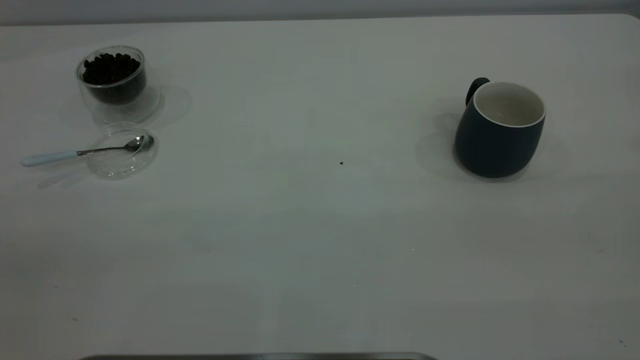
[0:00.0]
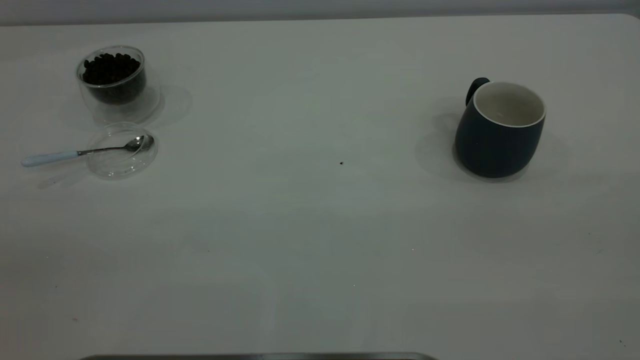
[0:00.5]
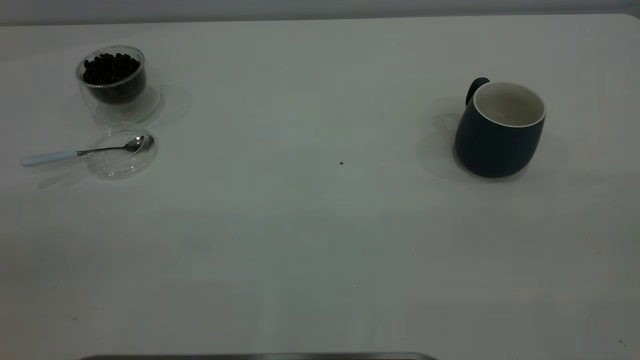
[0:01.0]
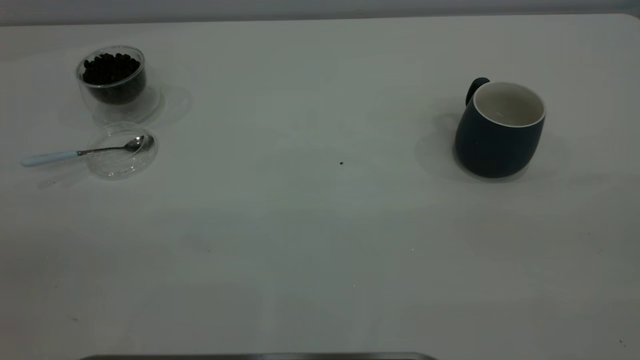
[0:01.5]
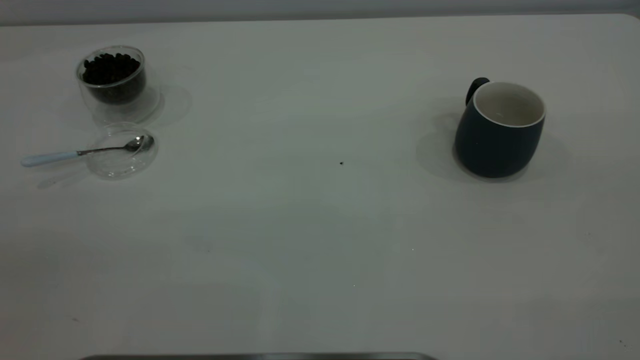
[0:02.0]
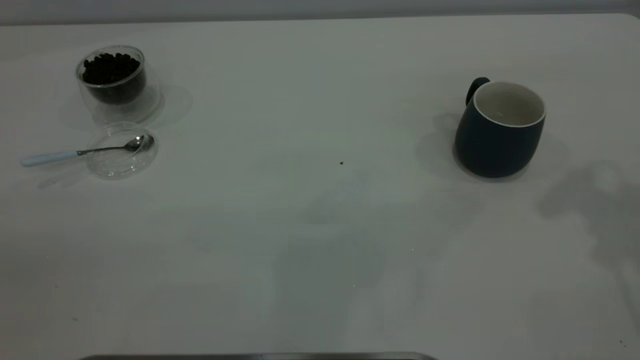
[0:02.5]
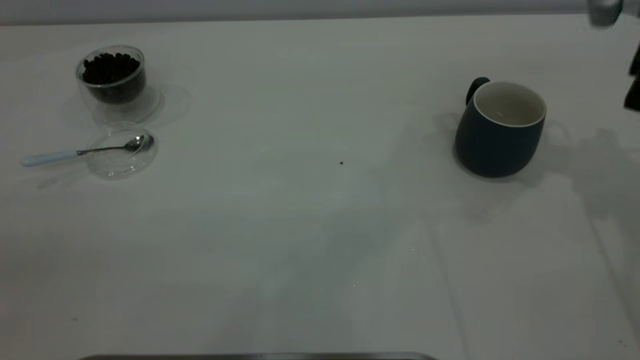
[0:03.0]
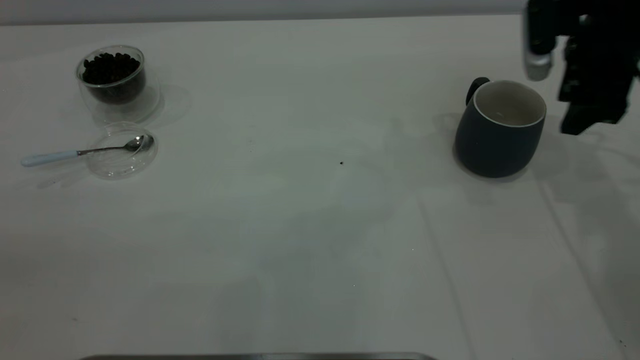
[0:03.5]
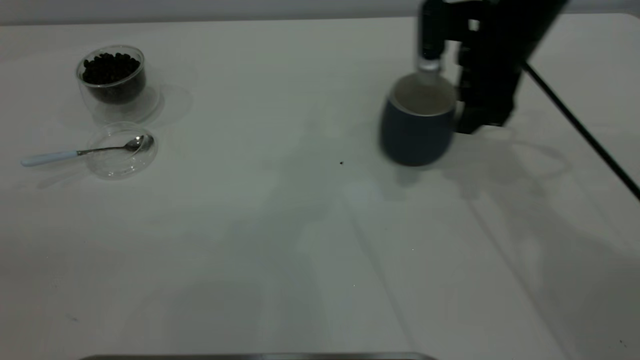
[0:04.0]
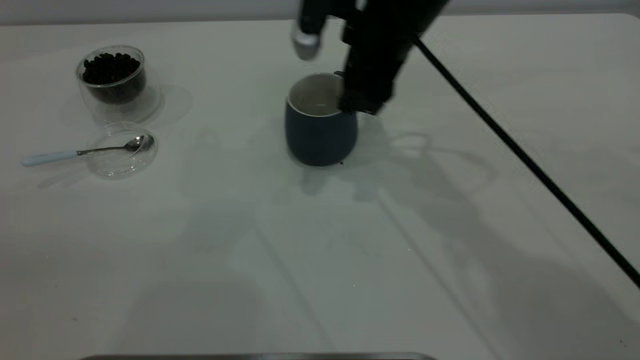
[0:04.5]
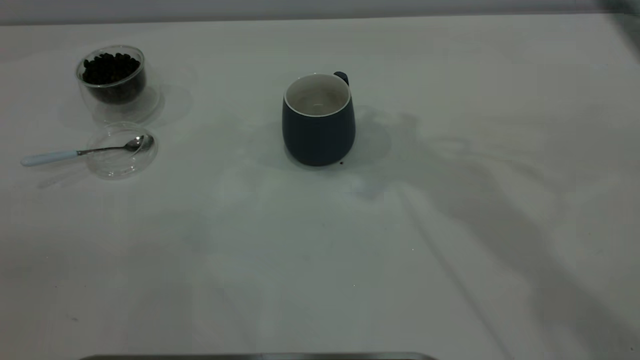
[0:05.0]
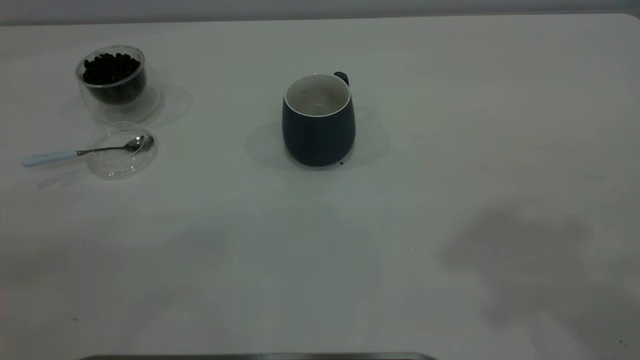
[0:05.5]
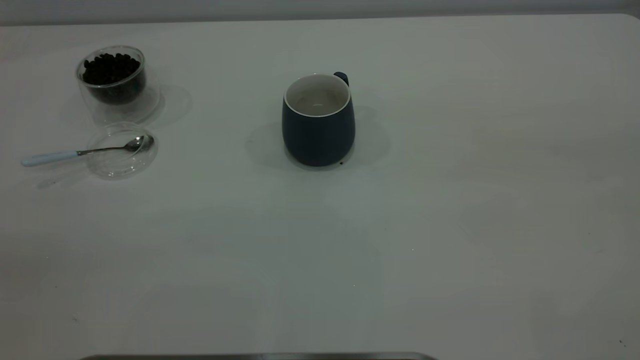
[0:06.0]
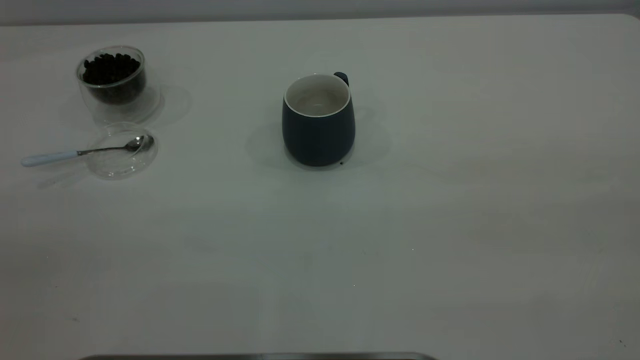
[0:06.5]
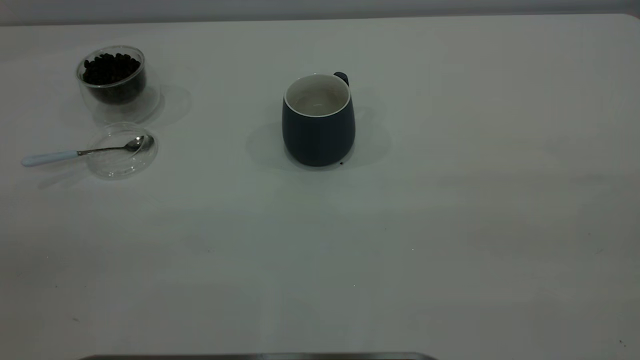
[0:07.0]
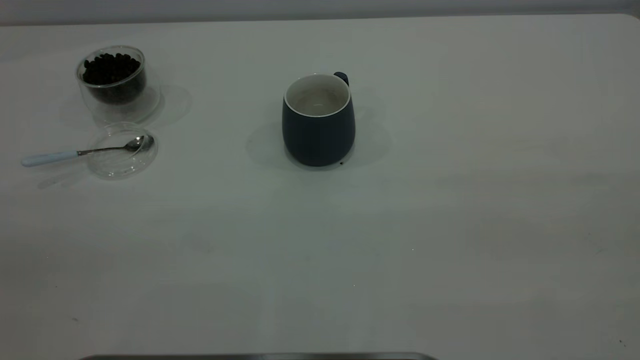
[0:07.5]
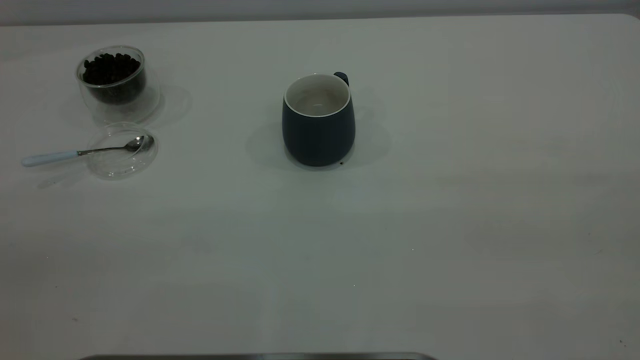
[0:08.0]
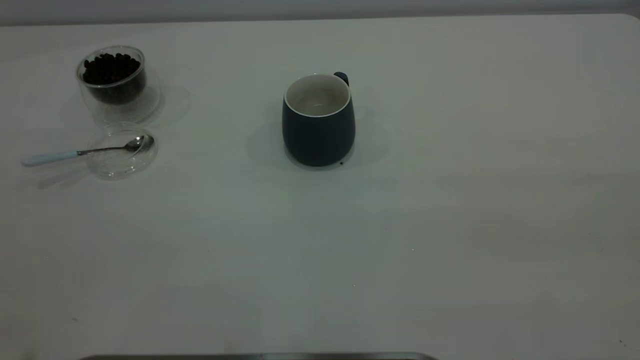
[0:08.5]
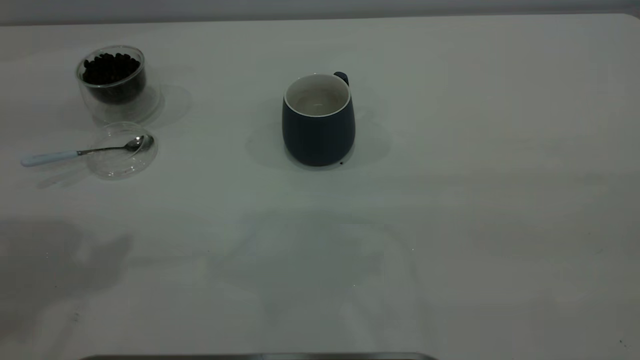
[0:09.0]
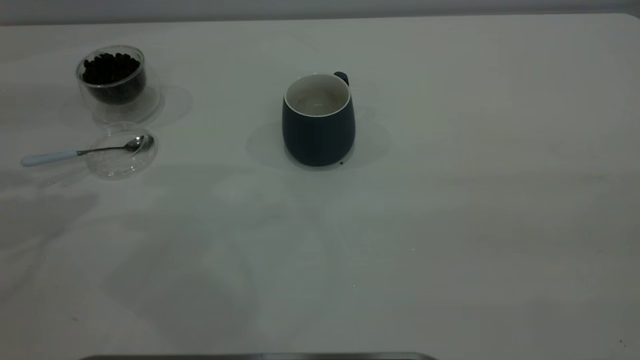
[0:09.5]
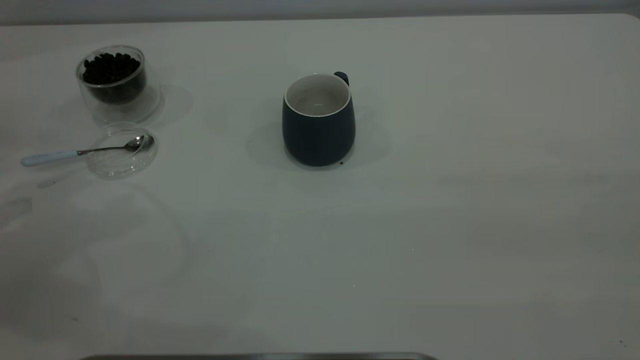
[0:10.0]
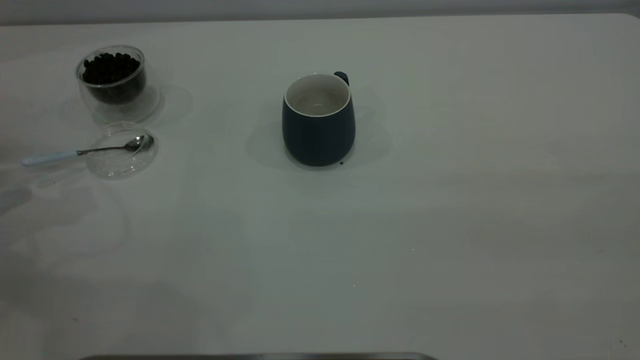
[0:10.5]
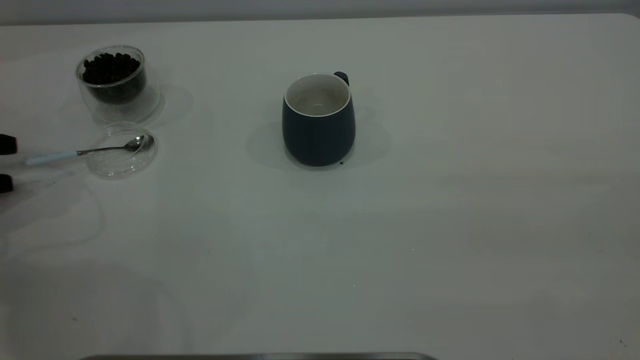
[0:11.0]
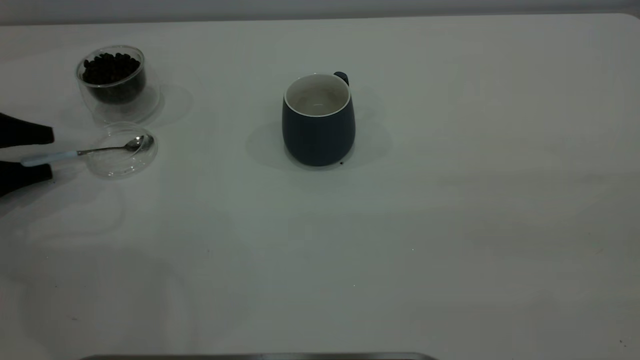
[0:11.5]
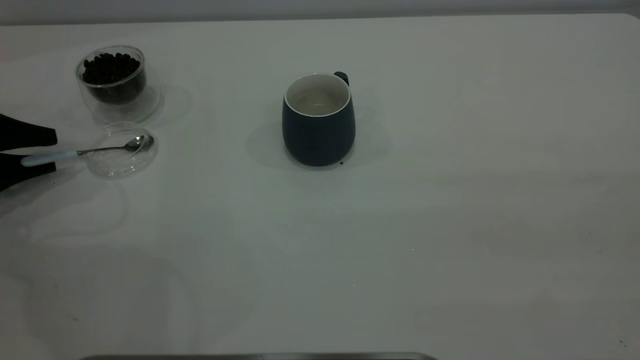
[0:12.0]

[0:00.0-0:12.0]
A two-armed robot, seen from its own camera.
Task of the whole recording: the right gripper place the grey cup in the center of the table, the left gripper take the blue spoon from the cup lid and scoop out the coffee beans from the coffee cup and put them into the grey cup, the left gripper put the spoon back into the cup lid.
Step, 0:00.0 to 0:04.5: Move the cup to the center of view.
0:02.0 to 0:04.0: The right gripper shifts about 40 cm forward, downward and to the left.
0:04.0 to 0:06.0: The right gripper shifts about 50 cm backward and upward.
0:10.0 to 0:12.0: The left gripper shifts about 15 cm downward and forward, and closes its fingers.

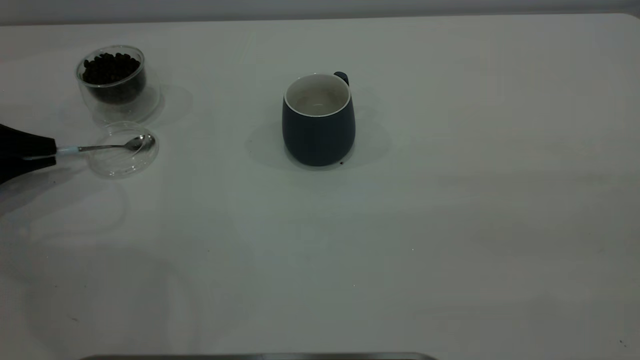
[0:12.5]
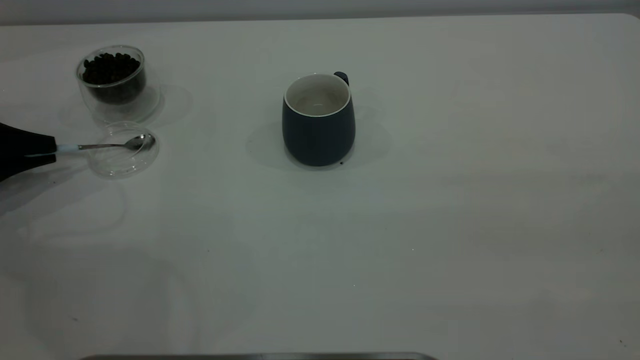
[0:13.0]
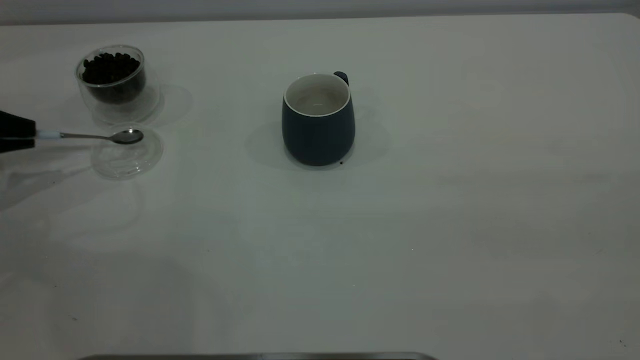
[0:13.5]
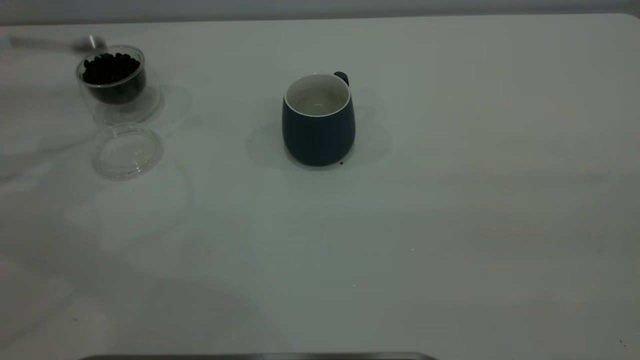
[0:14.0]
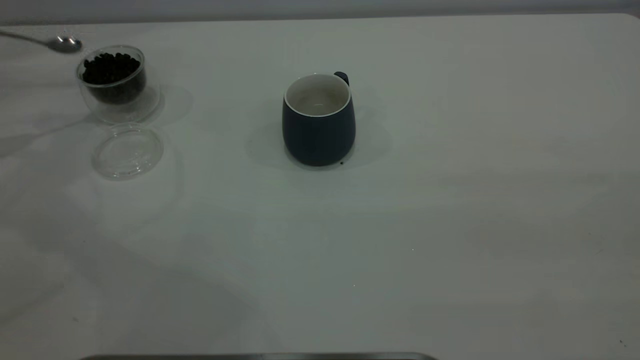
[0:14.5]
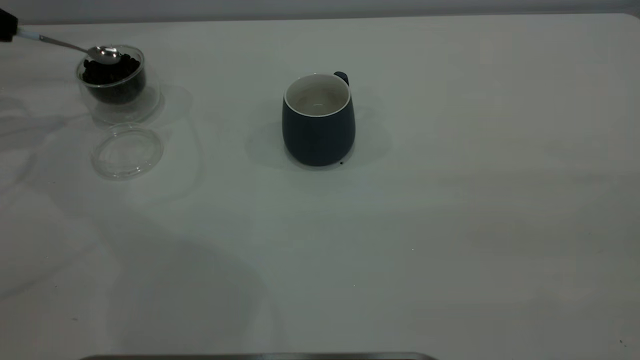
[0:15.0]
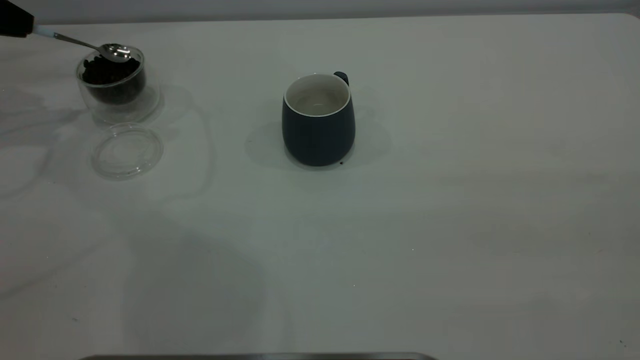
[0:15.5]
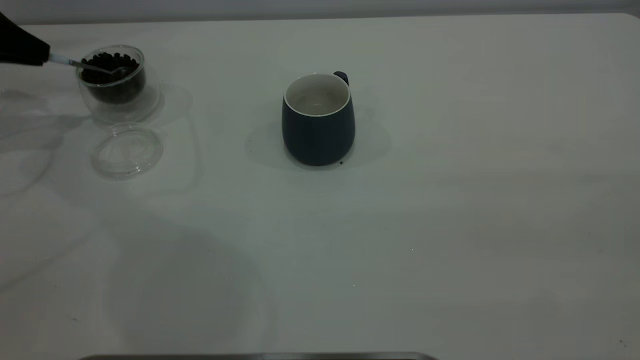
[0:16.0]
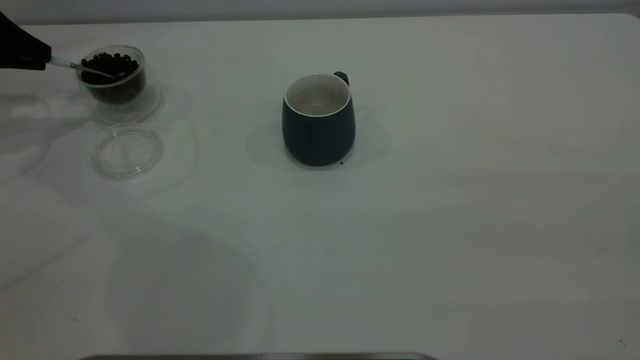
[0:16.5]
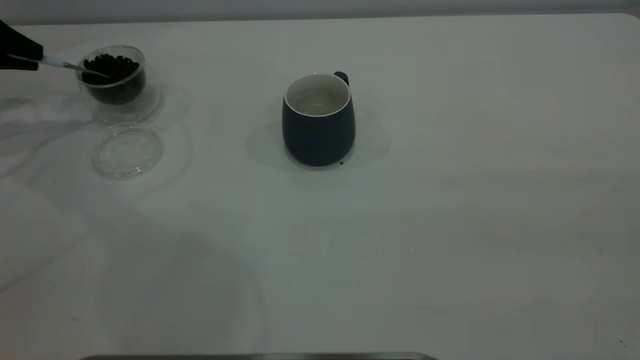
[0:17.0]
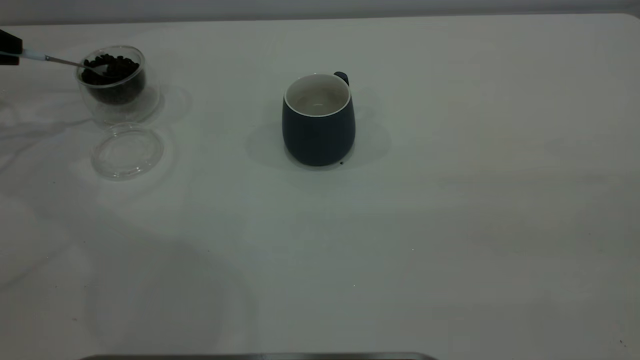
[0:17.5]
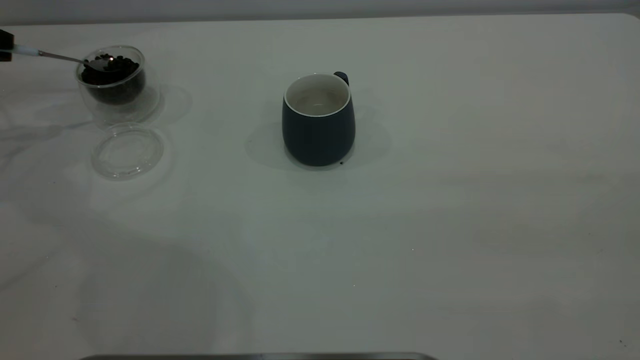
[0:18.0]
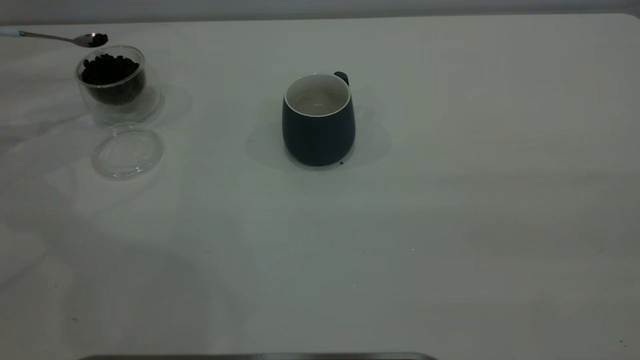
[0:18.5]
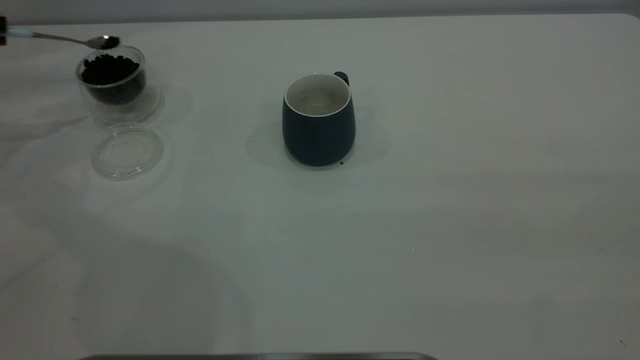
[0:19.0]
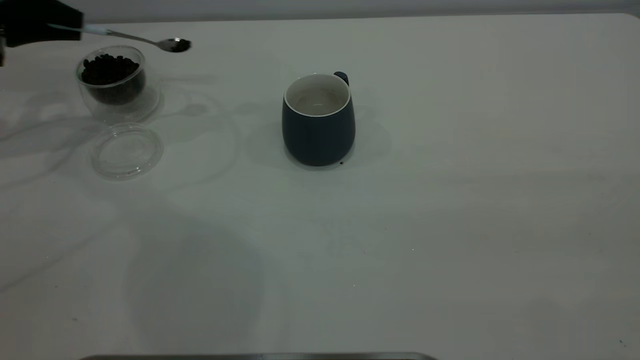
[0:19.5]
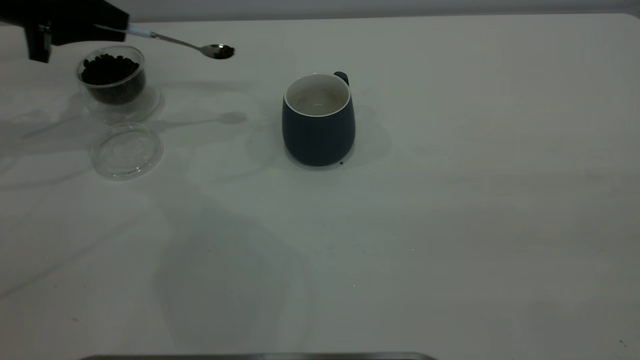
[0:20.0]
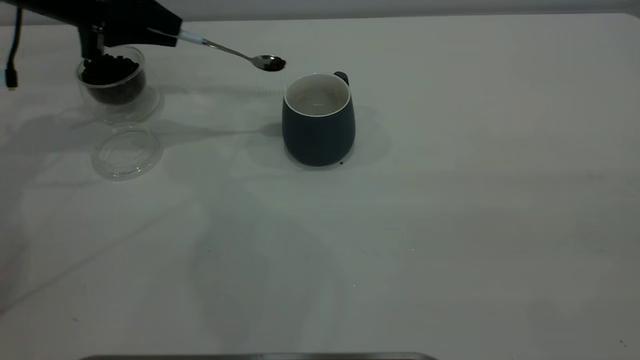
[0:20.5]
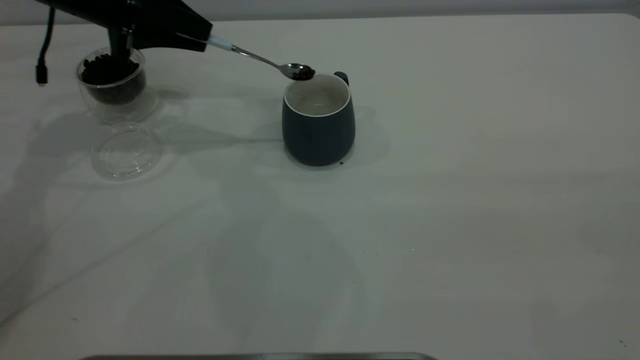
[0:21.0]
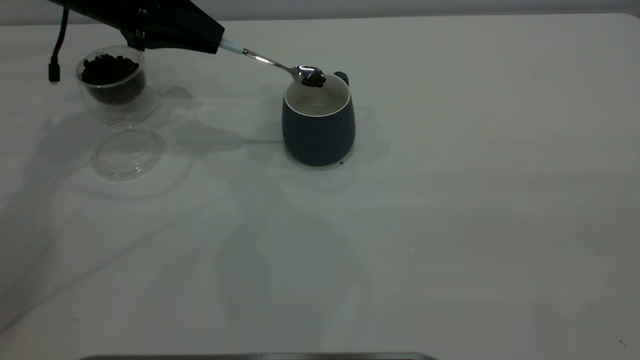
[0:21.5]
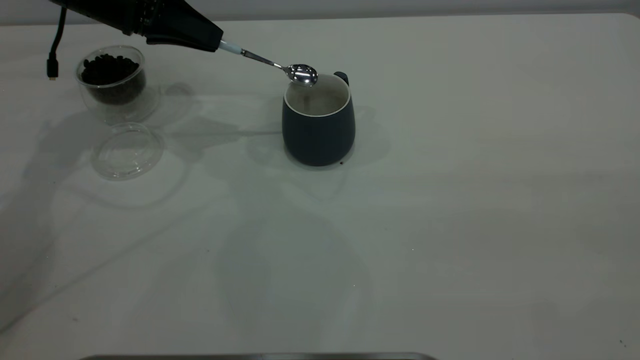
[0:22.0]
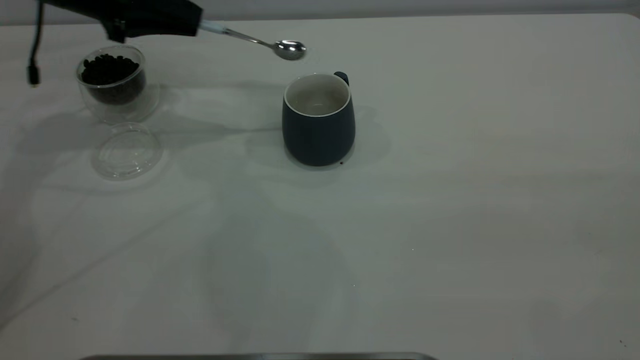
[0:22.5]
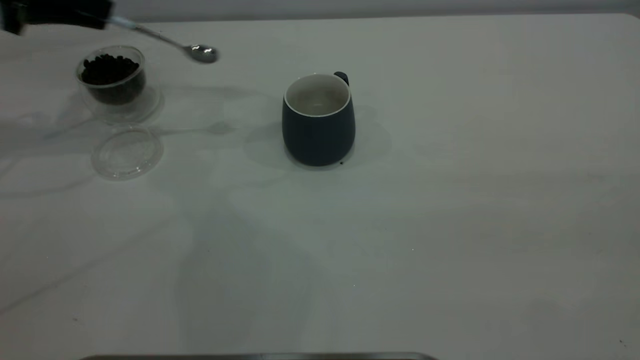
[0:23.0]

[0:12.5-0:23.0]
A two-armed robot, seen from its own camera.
Task of the whole recording: the right gripper place the grey cup in the center of the table, the left gripper take the blue spoon from the cup lid and scoop out the coffee beans from the coffee cup and put them into the grey cup, the left gripper put the spoon back into the cup lid.
Step, 0:14.5 to 0:22.5: Scoop a spoonful of beans into the cup.
0:12.5 to 0:14.5: The left gripper travels upward by some 15 cm.
0:14.5 to 0:16.5: The left gripper ends up approximately 10 cm from where it was.
0:16.5 to 0:19.0: The grippers make only small movements.
0:19.0 to 0:21.0: The left gripper shifts some 20 cm to the right.
0:21.0 to 0:23.0: The left gripper goes roughly 10 cm to the left.
